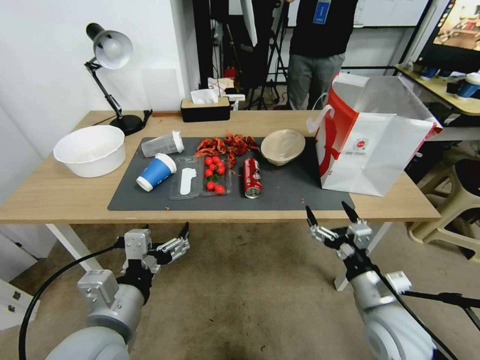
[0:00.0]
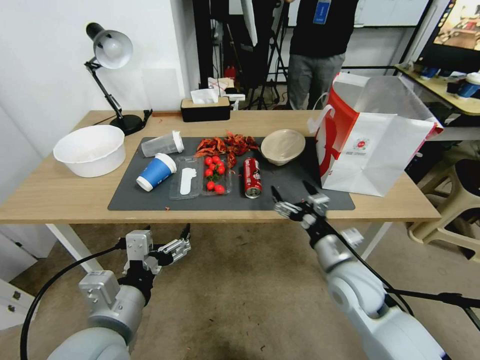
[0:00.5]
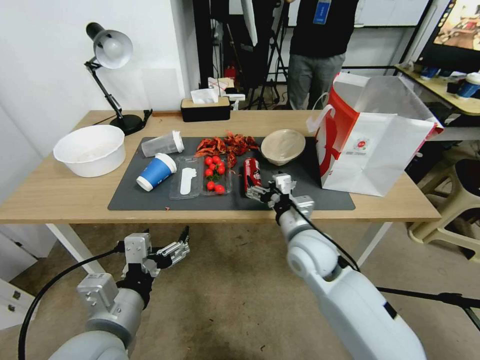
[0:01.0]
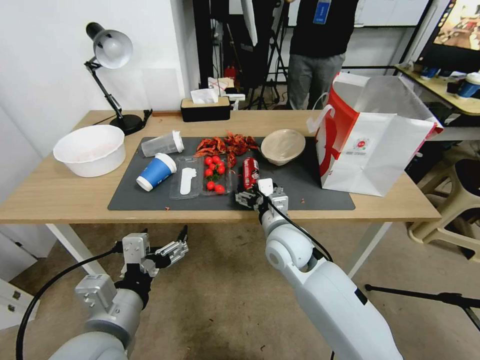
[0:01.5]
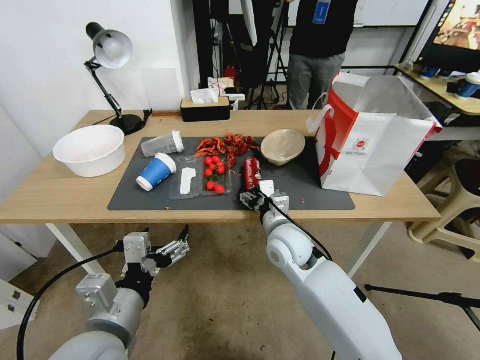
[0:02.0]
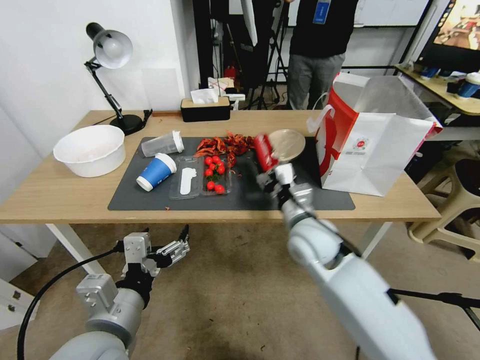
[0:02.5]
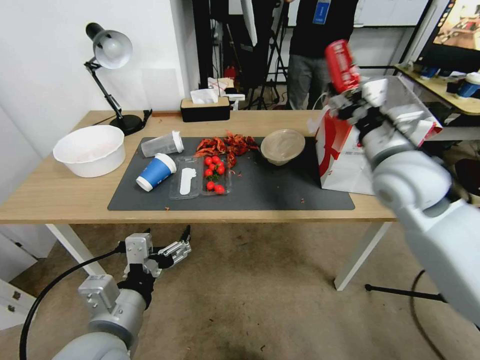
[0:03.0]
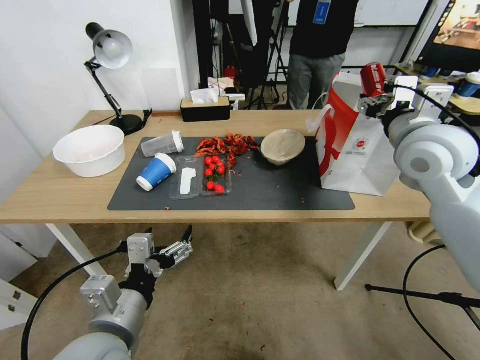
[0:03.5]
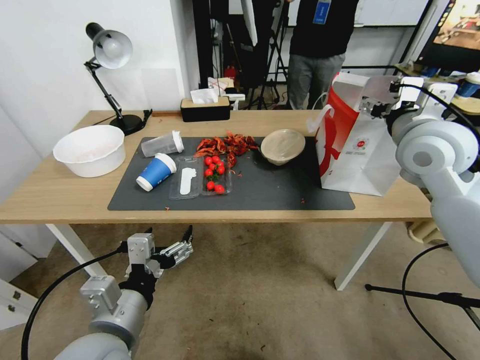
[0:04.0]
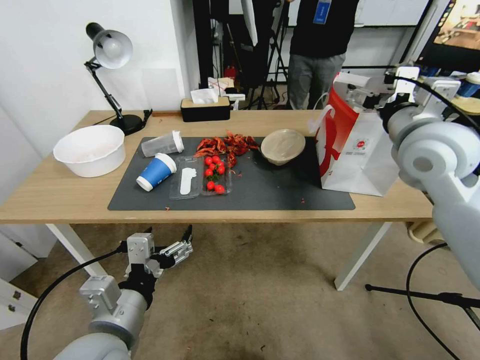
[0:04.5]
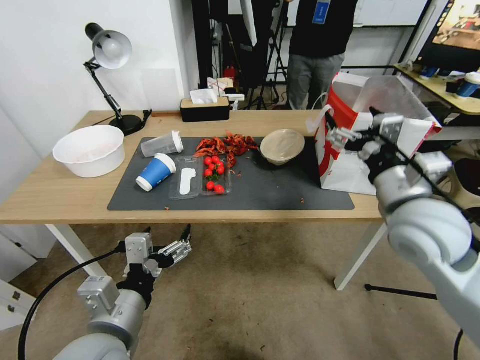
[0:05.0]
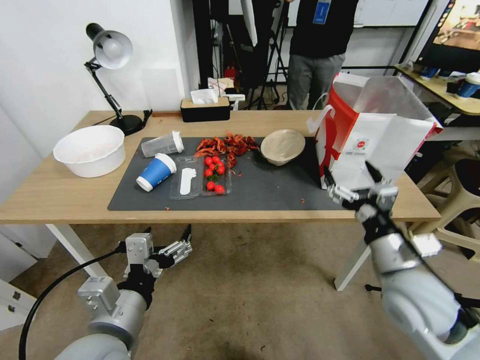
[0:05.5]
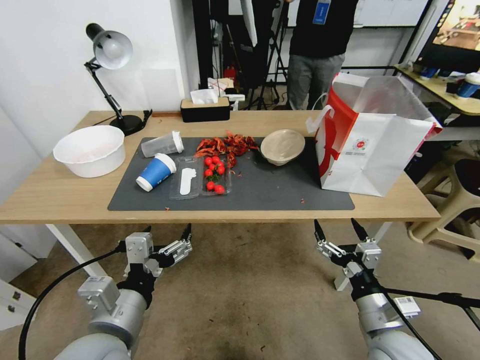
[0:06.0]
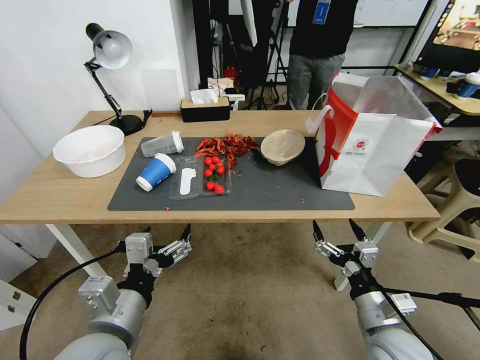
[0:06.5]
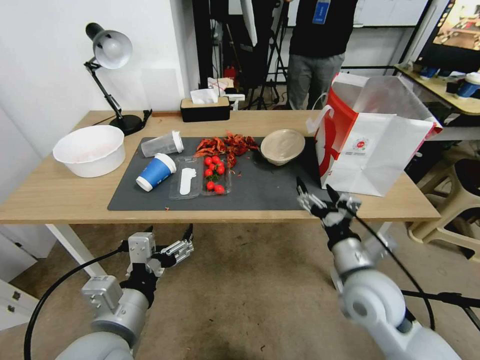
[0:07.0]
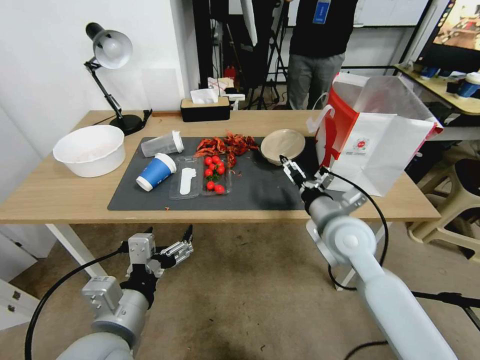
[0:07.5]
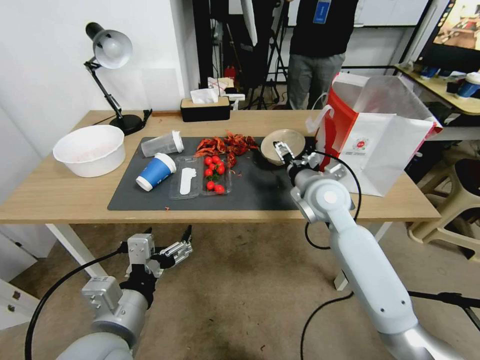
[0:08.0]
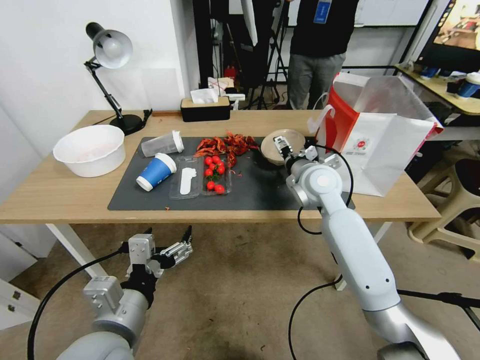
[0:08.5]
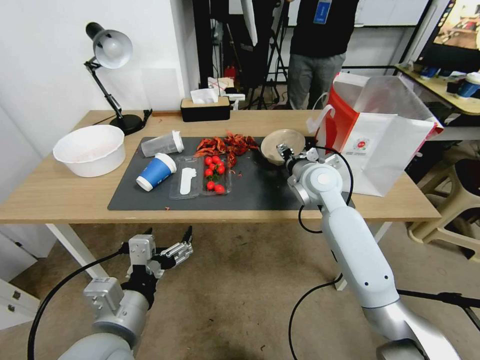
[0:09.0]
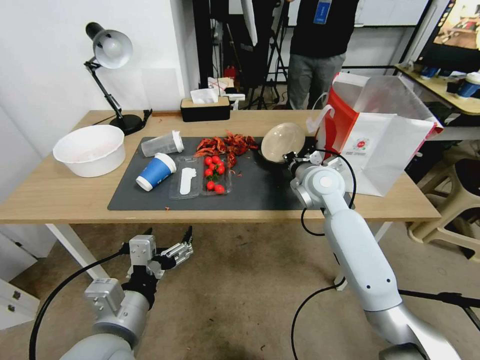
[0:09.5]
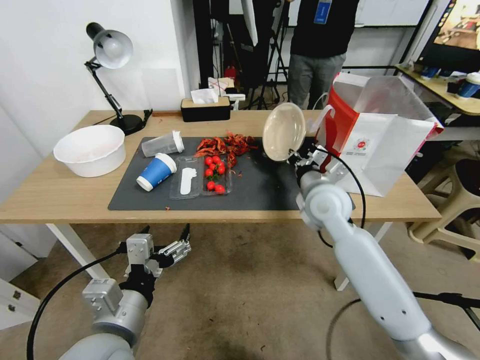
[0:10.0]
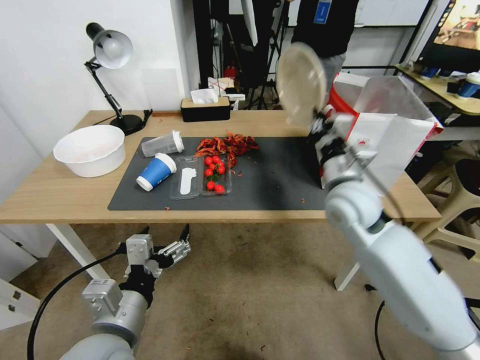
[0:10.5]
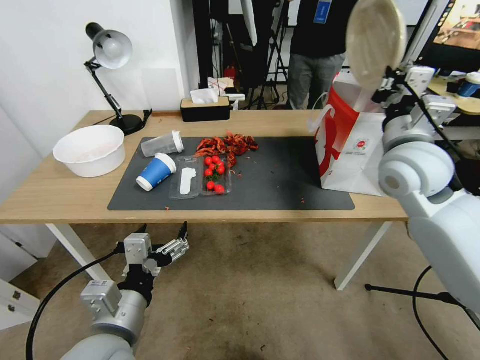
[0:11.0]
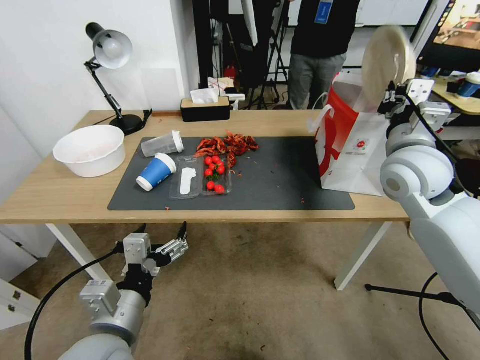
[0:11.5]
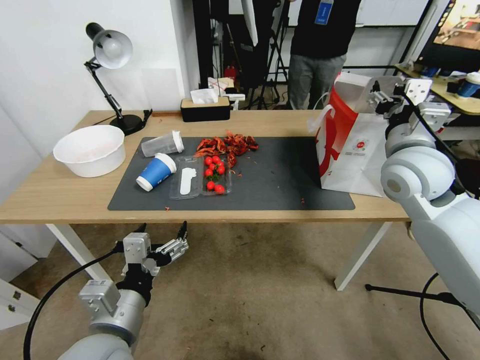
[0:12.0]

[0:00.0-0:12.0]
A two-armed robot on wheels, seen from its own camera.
0:00.0 to 0:02.0: The right gripper heads to the left and forward, covering some 25 cm.
0:02.0 to 0:04.0: The right gripper goes roughly 30 cm upward and to the right.
0:04.0 to 0:06.0: The right gripper moves downward and backward, approximately 35 cm.
0:06.0 to 0:08.0: The right gripper moves forward and upward, approximately 25 cm.
0:08.0 to 0:10.0: The right gripper closes up.
0:10.0 to 0:12.0: The right gripper travels upward and to the right by some 15 cm, and opens up.

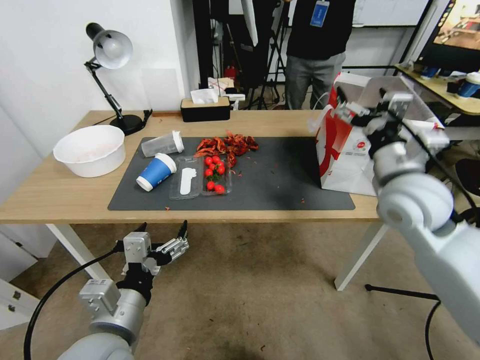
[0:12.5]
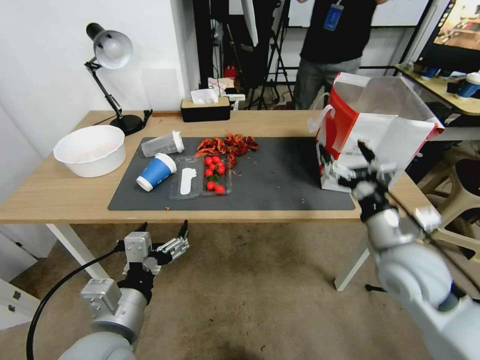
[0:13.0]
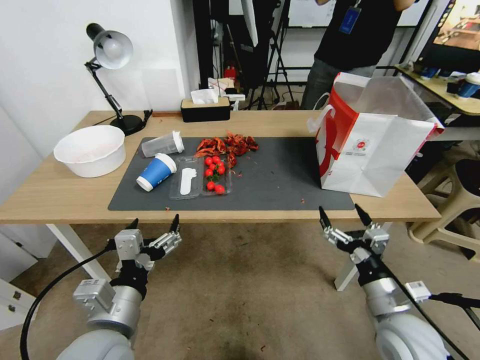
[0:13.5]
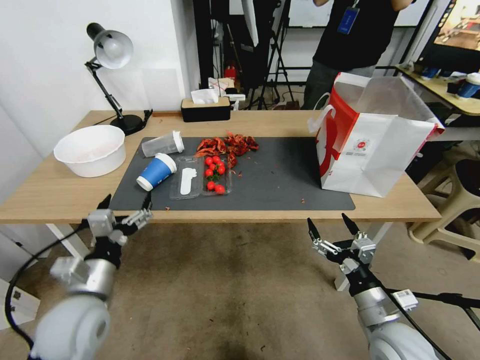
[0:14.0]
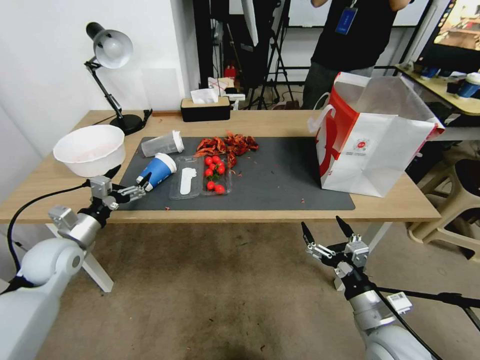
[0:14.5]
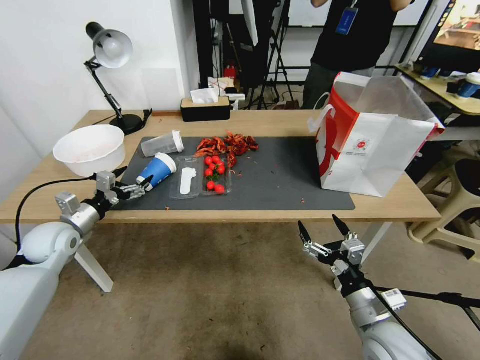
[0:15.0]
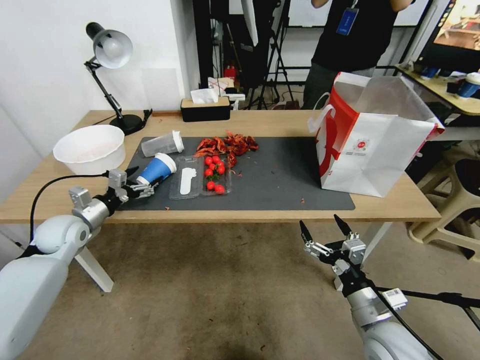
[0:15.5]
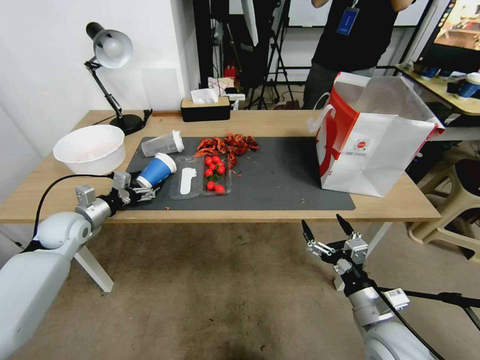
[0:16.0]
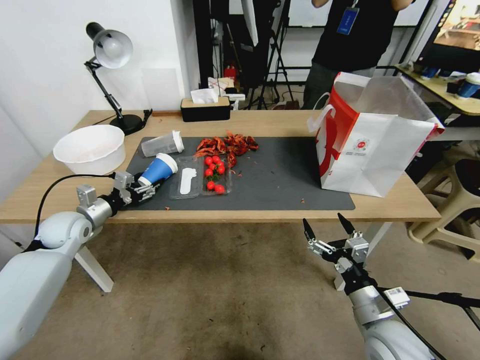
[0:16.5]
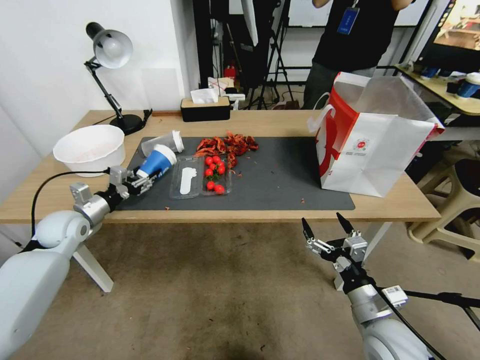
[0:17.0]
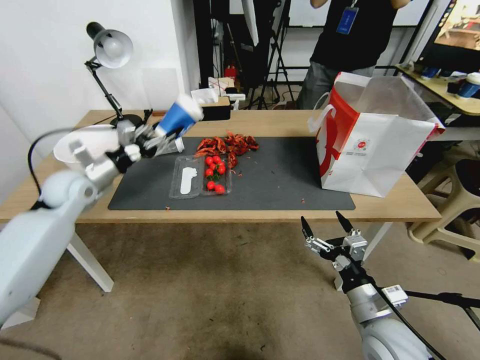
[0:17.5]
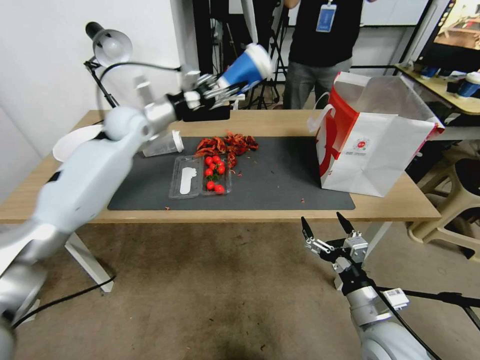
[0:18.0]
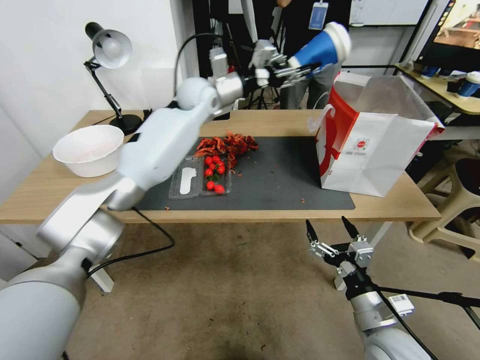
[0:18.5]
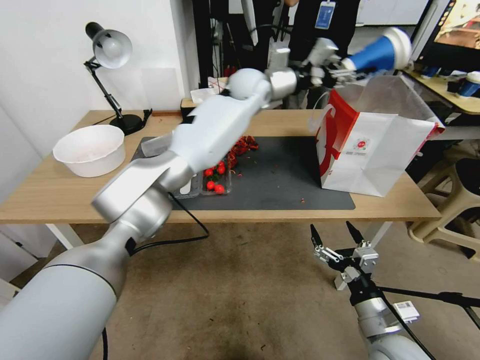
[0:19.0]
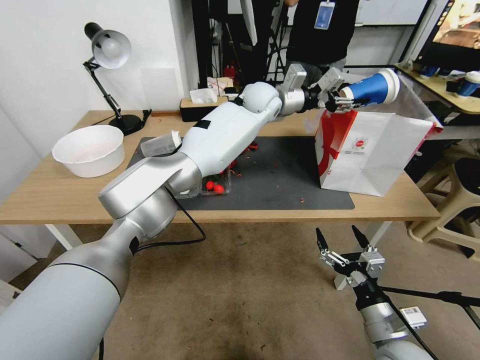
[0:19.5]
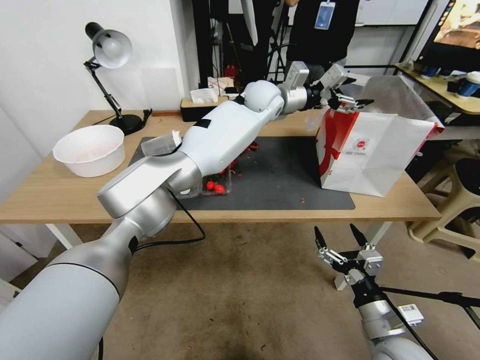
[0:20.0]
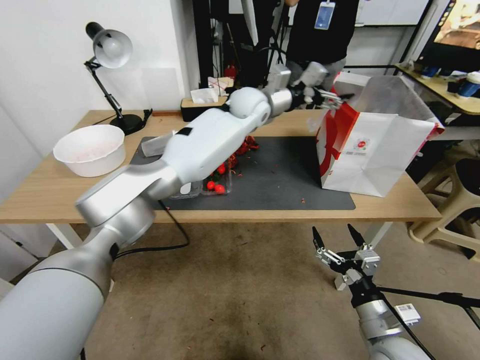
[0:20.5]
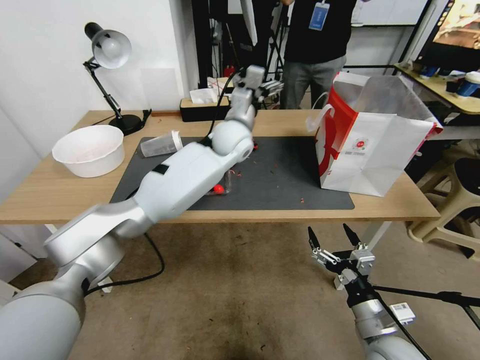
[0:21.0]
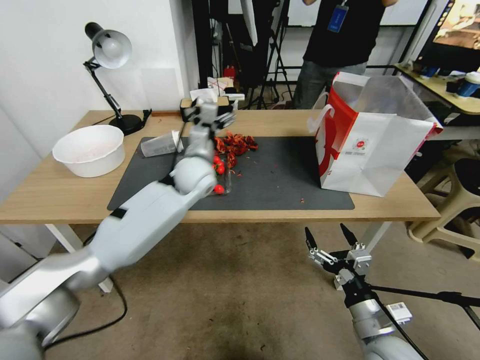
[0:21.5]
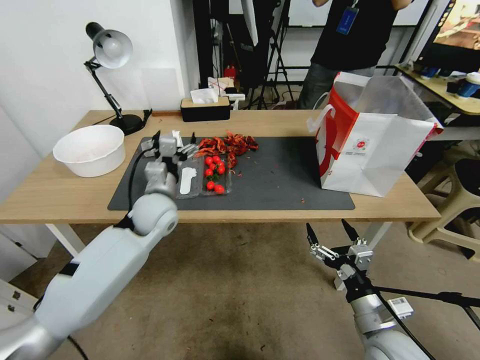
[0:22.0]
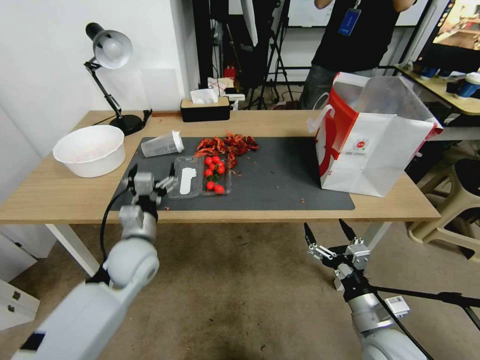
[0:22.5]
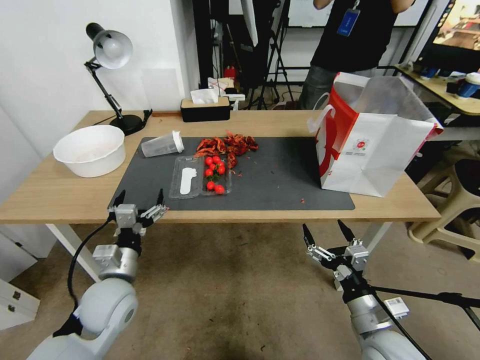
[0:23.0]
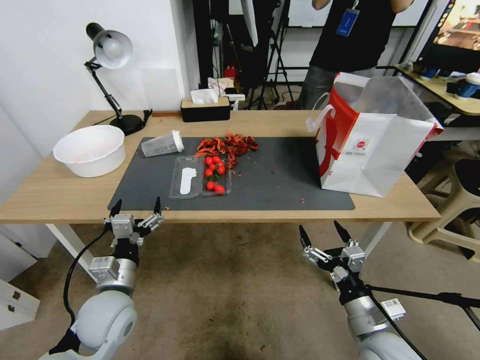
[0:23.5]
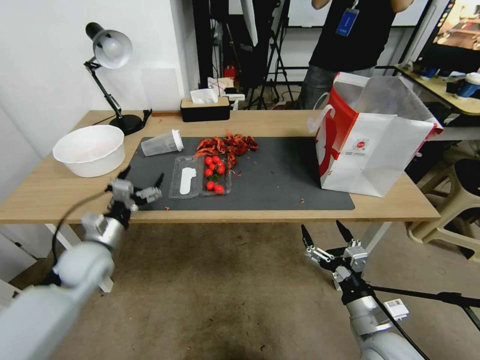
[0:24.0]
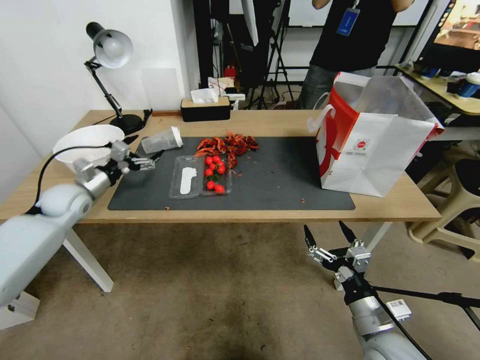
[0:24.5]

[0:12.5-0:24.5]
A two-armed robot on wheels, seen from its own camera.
0:12.5 to 0:14.5: The right gripper moves downward and backward, about 30 cm; the left gripper shifts approximately 25 cm to the left and forward.
0:14.5 to 0:16.5: The left gripper moves forward, roughly 10 cm.
0:16.5 to 0:18.5: The left gripper shifts about 50 cm to the right, upward and forward.
0:18.5 to 0:20.5: The left gripper moves to the right, about 10 cm, and opens its fingers.
0:20.5 to 0:22.5: The left gripper goes approximately 40 cm backward, to the left and downward.
0:22.5 to 0:24.5: The left gripper shifts roughly 20 cm to the left and forward.

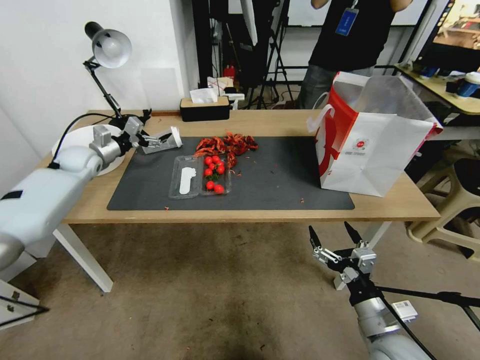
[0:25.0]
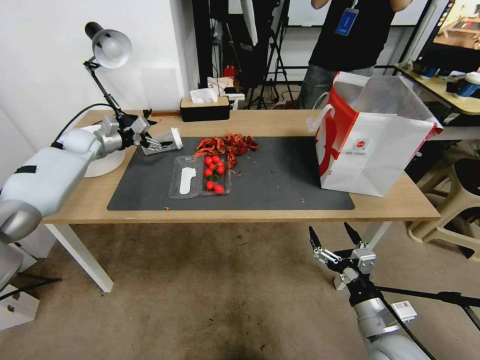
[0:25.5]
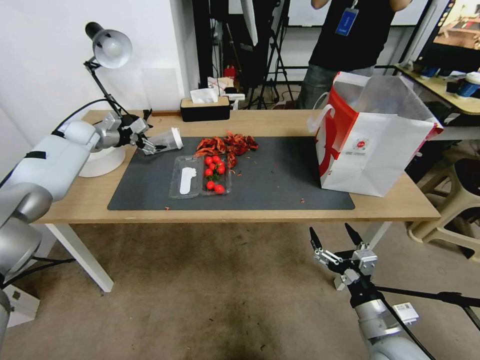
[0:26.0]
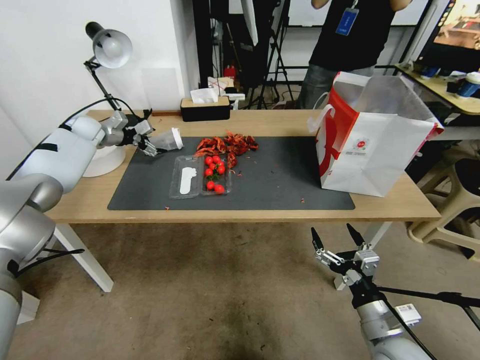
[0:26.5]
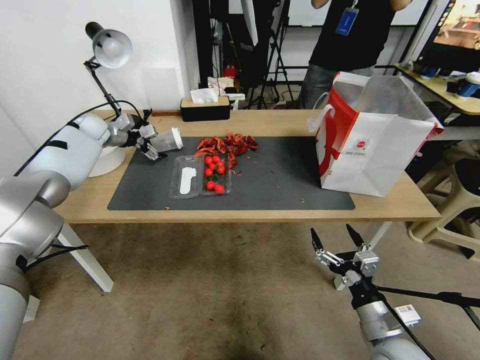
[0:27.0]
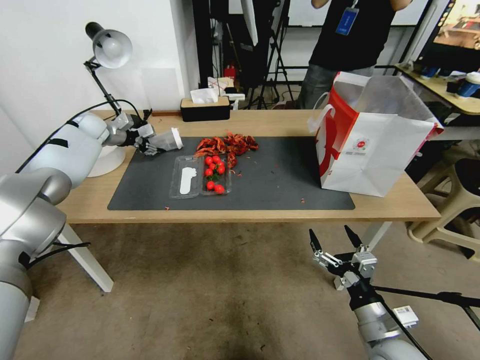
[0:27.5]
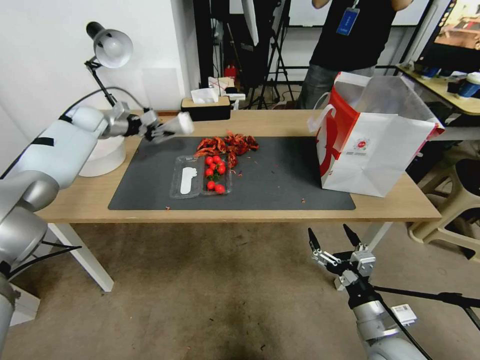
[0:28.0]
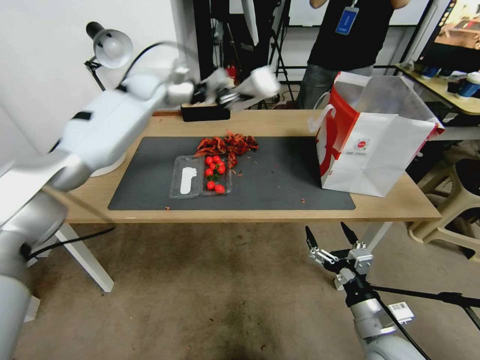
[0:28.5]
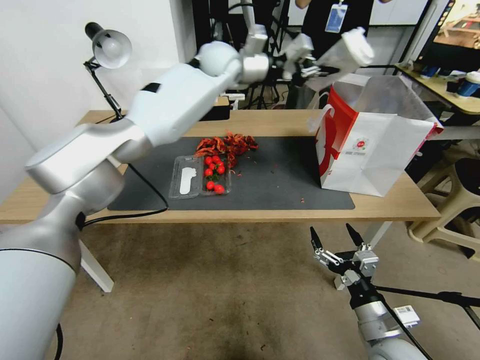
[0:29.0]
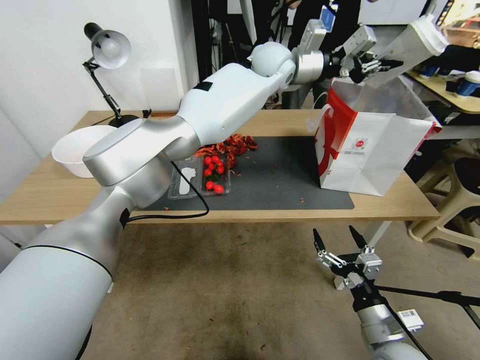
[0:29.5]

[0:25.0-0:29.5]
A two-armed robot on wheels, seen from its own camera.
0:25.0 to 0:27.0: The left gripper goes some 15 cm forward and upward.
0:27.0 to 0:29.5: The left gripper goes some 50 cm to the right, and closes.
